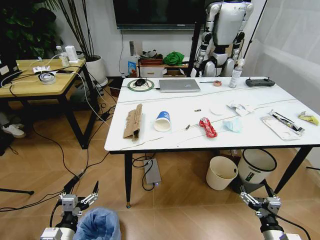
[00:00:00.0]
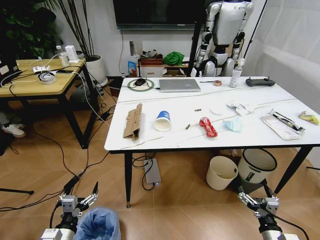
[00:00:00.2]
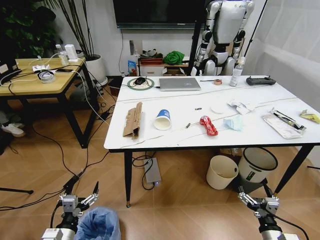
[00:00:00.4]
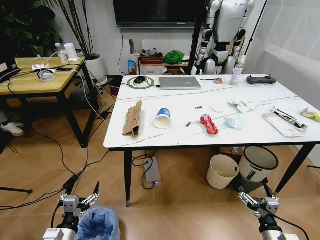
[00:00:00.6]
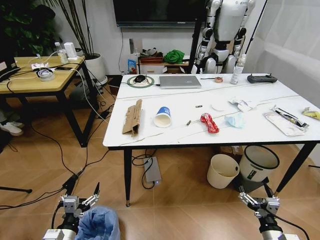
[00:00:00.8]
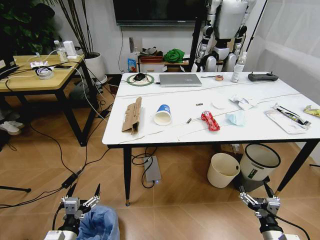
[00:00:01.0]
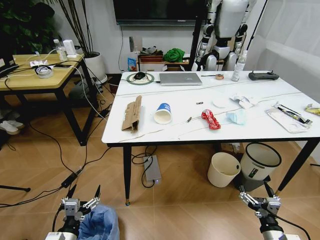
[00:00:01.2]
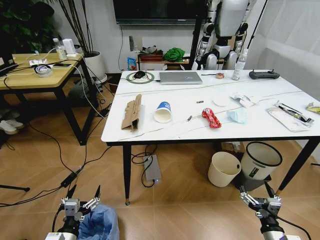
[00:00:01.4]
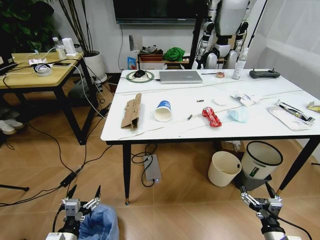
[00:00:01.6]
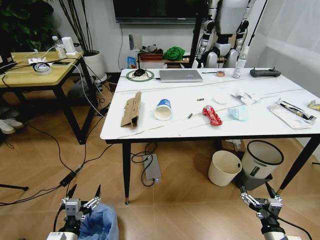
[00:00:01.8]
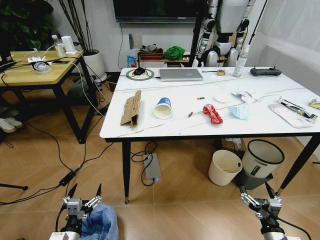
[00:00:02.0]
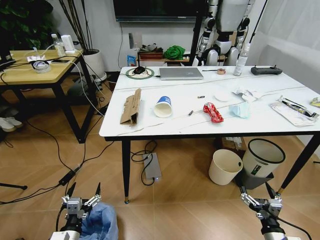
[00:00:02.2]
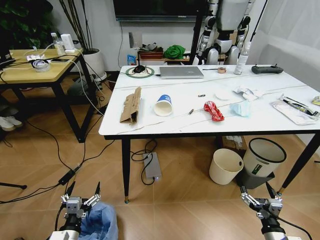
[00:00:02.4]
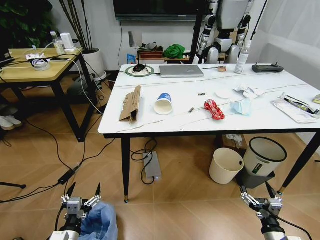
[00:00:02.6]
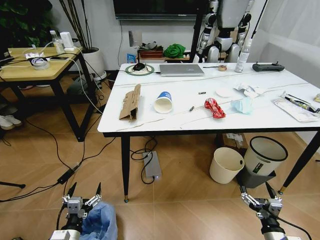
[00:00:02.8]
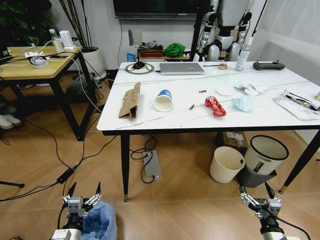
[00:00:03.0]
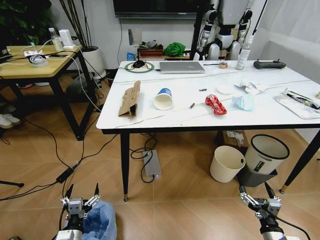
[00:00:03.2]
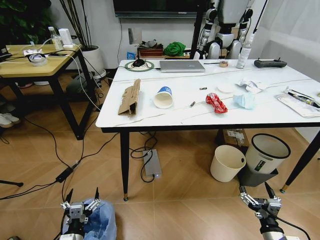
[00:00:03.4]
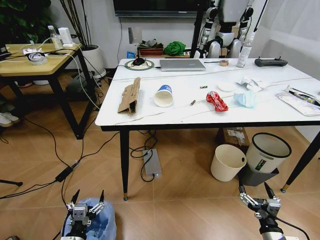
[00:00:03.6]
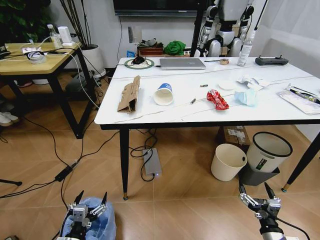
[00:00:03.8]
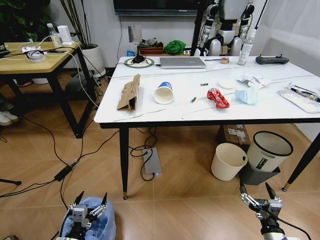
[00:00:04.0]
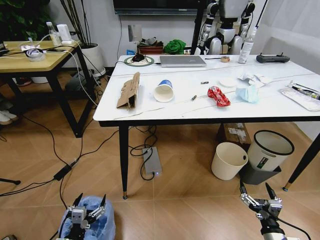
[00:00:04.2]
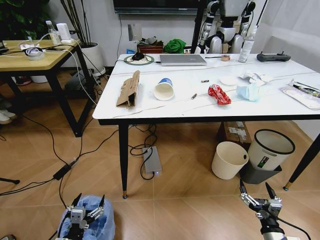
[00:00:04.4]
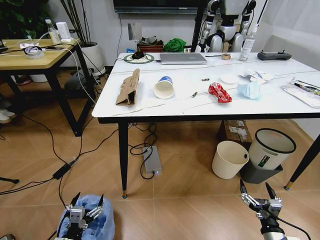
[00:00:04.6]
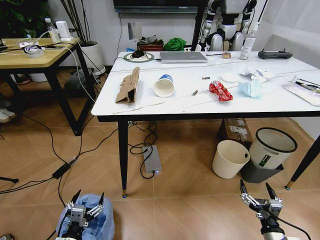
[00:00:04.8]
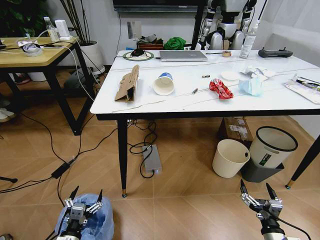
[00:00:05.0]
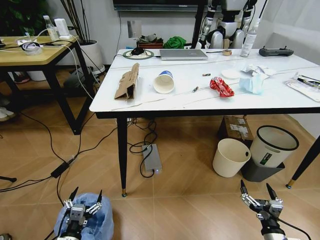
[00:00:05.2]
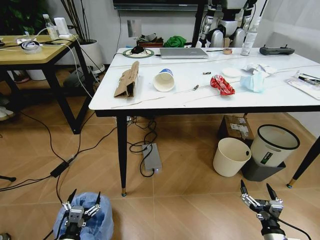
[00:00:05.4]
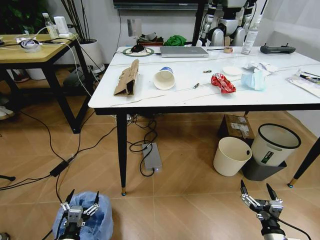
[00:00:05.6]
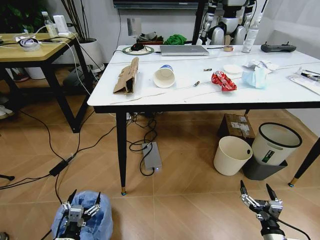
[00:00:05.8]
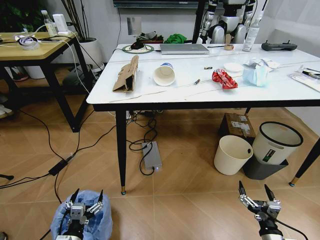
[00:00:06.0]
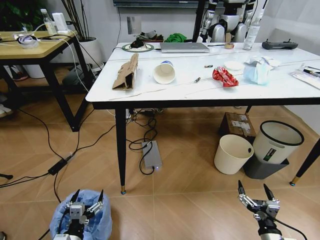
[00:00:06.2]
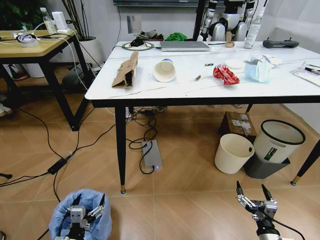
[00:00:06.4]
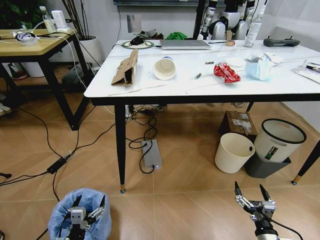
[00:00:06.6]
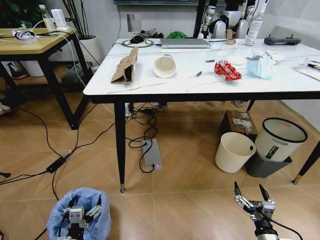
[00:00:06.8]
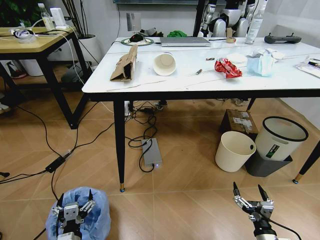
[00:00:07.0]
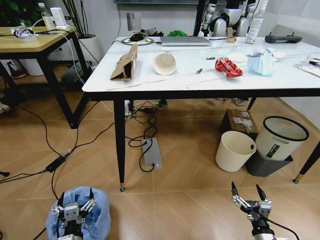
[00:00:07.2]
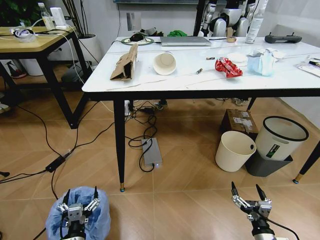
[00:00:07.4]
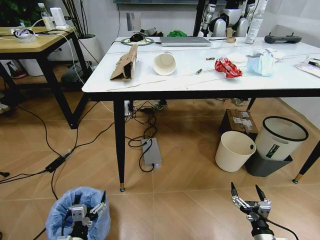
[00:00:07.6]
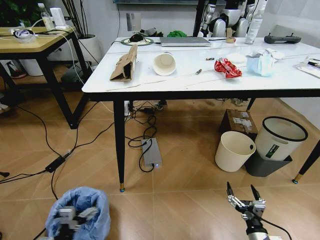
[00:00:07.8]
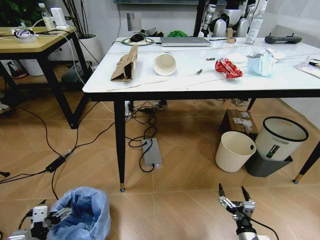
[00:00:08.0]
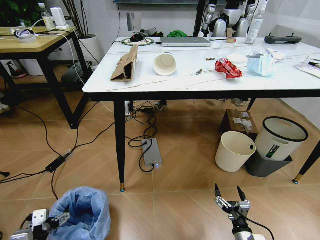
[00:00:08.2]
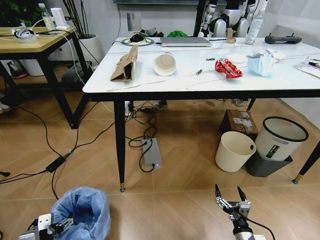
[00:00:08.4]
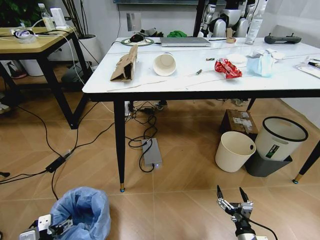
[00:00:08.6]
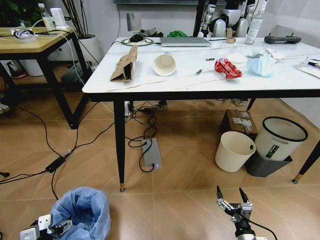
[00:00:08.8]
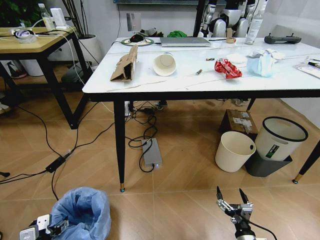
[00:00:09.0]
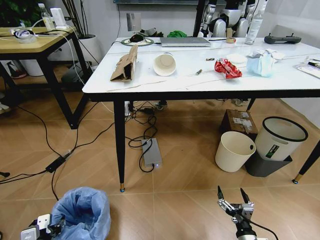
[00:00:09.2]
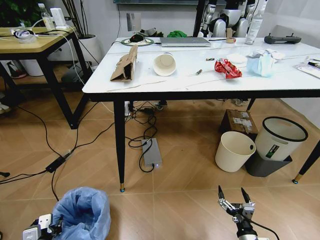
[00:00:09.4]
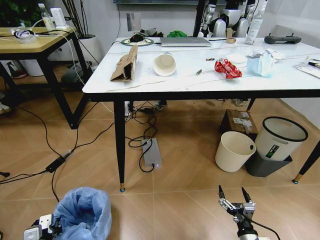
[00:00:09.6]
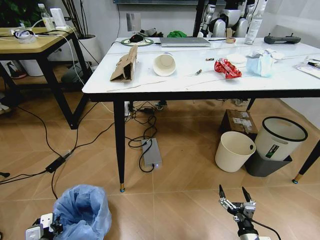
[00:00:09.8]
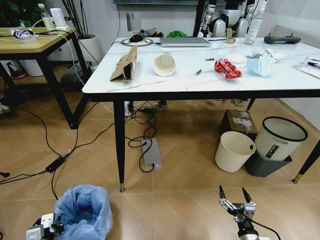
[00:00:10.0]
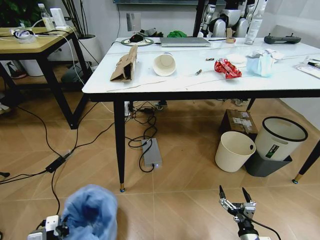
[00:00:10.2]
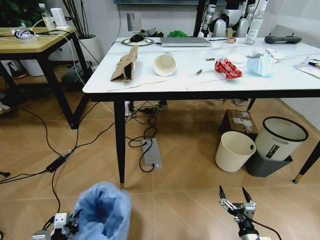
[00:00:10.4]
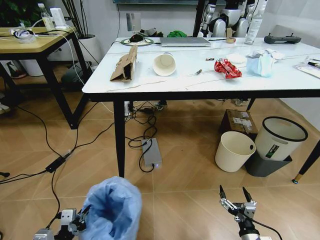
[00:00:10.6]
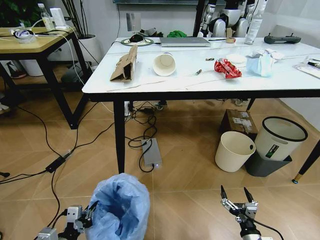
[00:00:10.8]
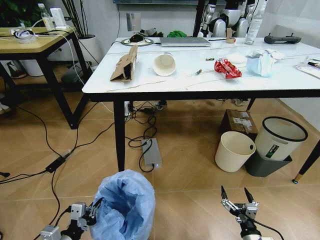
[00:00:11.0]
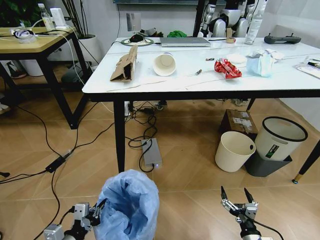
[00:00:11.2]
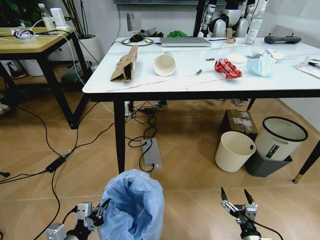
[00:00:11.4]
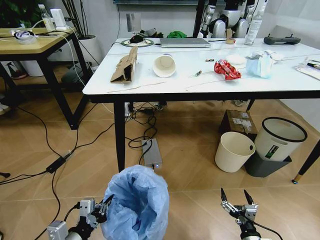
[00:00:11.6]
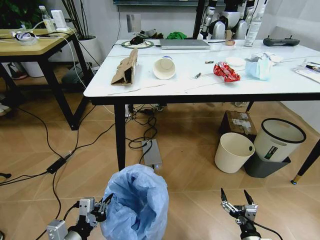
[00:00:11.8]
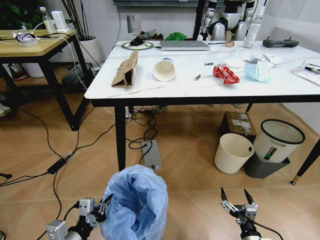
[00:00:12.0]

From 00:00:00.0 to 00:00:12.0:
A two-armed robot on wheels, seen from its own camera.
Task of the whole recording: Pick up the trash bin and place the trash from the table into it.
From 00:00:07.6 to 00:00:09.0: The left gripper goes some 10 cm to the left; the right gripper changes place by roughly 5 cm.
From 00:00:09.0 to 00:00:10.4: The left gripper closes.
From 00:00:10.4 to 00:00:12.0: The left gripper goes about 10 cm to the right and upward.

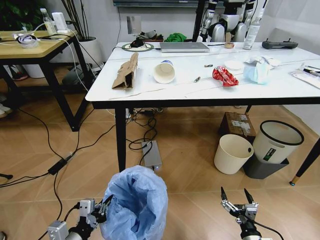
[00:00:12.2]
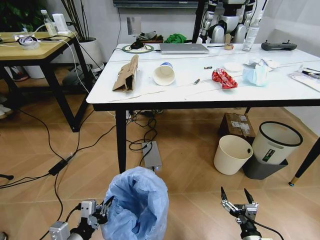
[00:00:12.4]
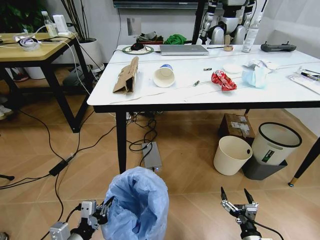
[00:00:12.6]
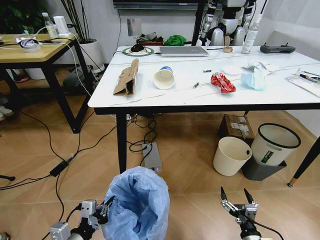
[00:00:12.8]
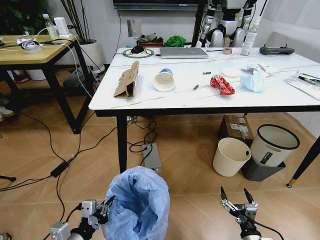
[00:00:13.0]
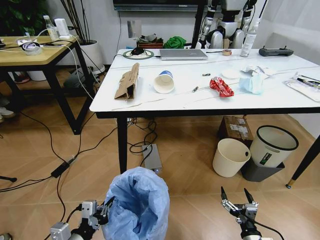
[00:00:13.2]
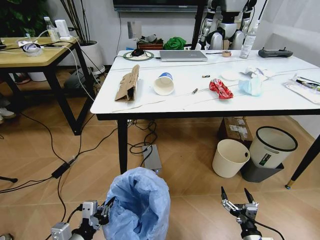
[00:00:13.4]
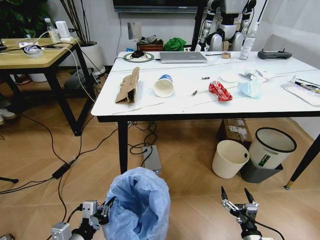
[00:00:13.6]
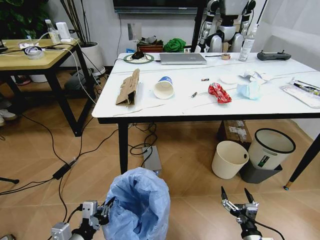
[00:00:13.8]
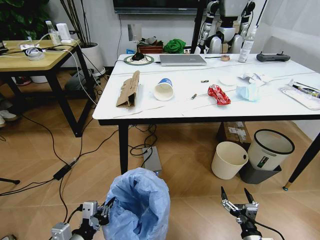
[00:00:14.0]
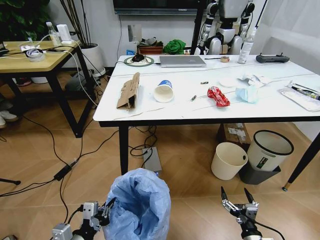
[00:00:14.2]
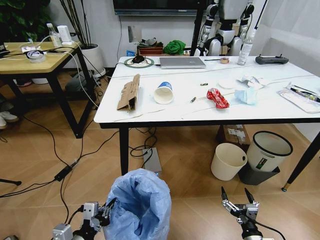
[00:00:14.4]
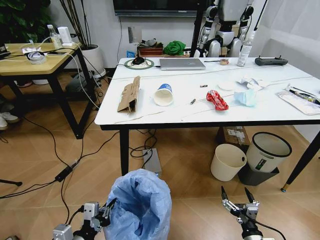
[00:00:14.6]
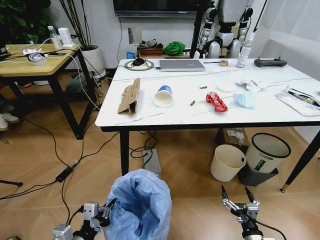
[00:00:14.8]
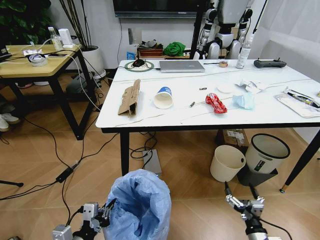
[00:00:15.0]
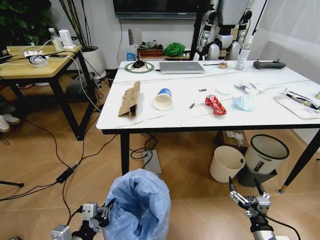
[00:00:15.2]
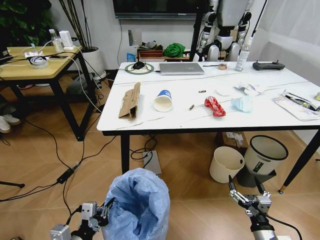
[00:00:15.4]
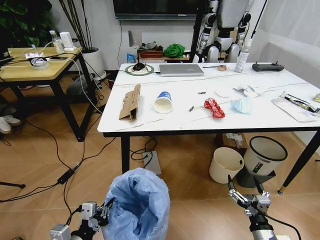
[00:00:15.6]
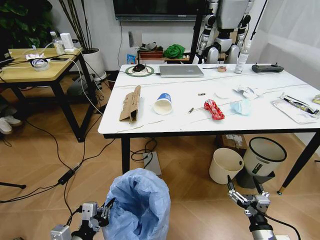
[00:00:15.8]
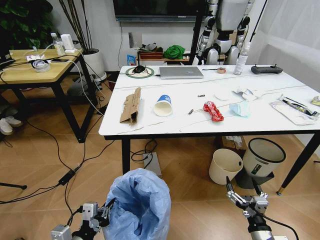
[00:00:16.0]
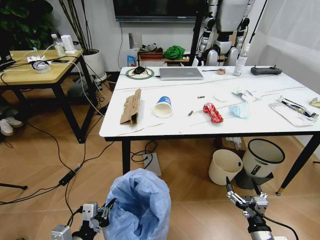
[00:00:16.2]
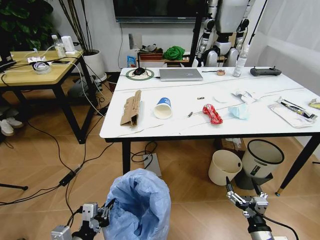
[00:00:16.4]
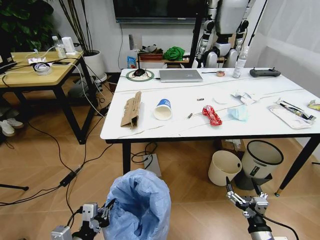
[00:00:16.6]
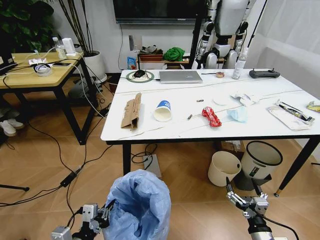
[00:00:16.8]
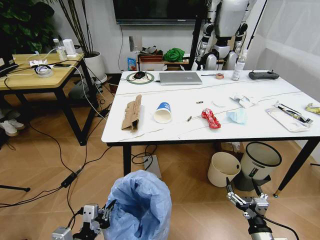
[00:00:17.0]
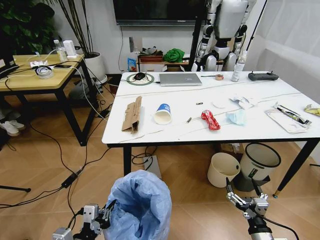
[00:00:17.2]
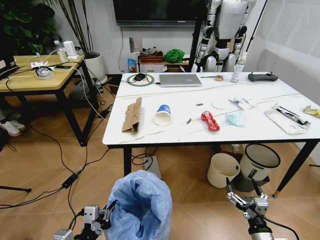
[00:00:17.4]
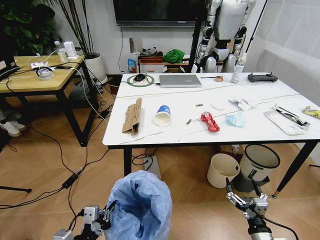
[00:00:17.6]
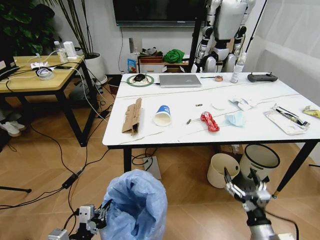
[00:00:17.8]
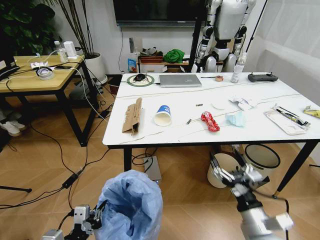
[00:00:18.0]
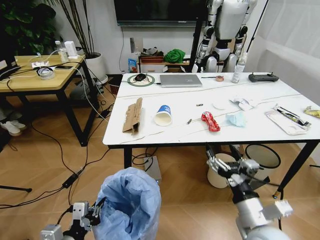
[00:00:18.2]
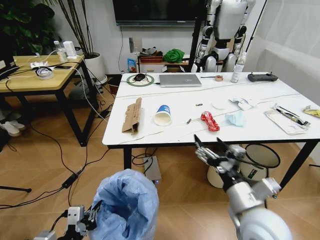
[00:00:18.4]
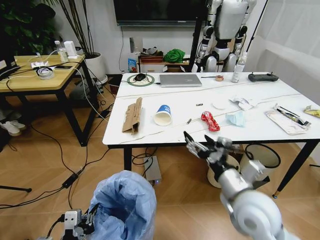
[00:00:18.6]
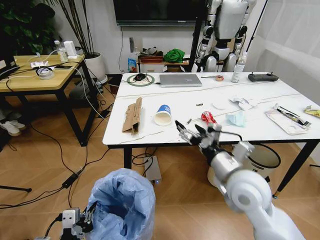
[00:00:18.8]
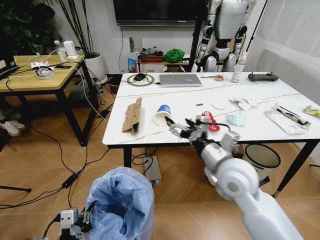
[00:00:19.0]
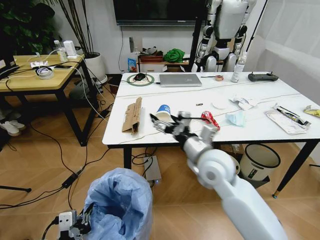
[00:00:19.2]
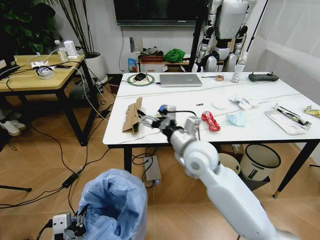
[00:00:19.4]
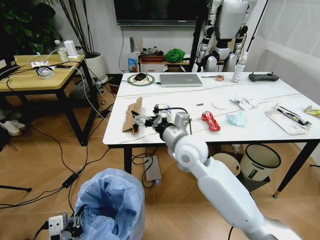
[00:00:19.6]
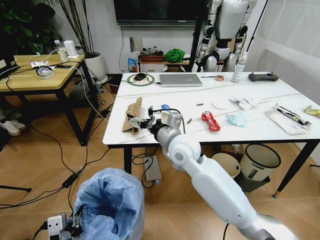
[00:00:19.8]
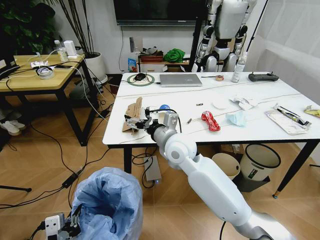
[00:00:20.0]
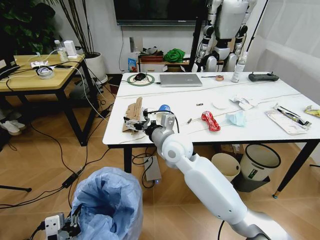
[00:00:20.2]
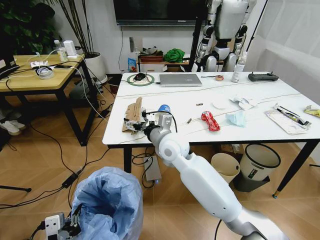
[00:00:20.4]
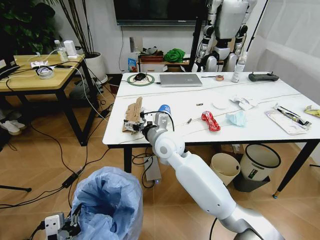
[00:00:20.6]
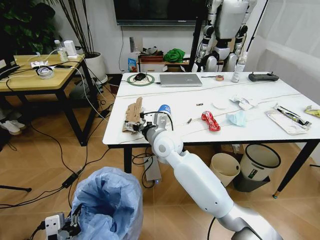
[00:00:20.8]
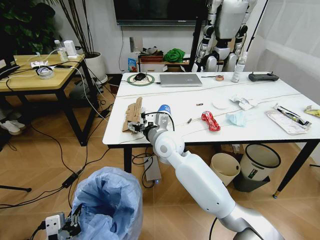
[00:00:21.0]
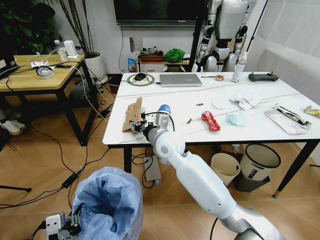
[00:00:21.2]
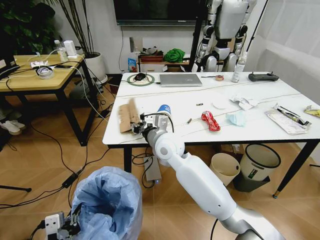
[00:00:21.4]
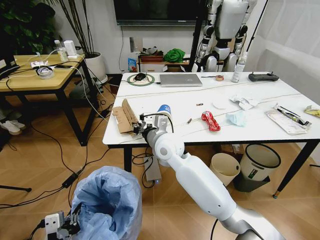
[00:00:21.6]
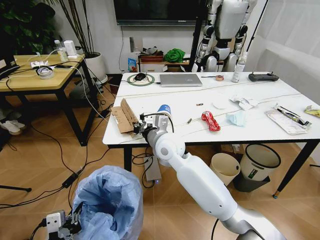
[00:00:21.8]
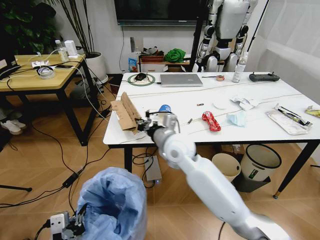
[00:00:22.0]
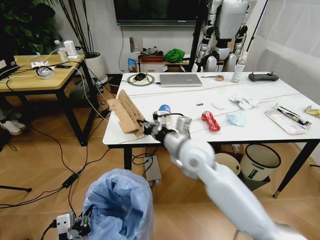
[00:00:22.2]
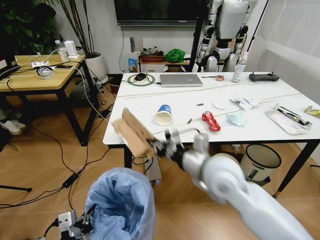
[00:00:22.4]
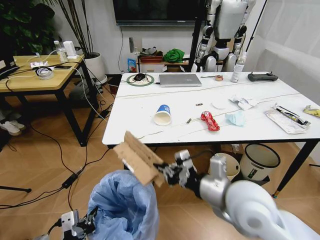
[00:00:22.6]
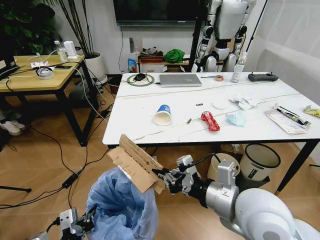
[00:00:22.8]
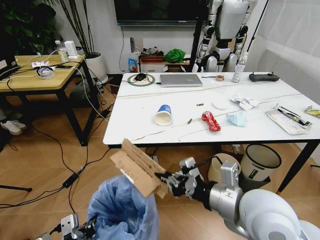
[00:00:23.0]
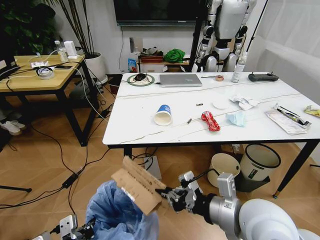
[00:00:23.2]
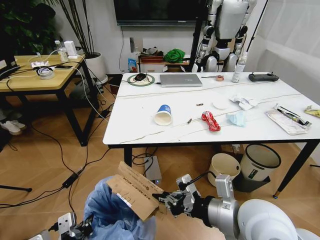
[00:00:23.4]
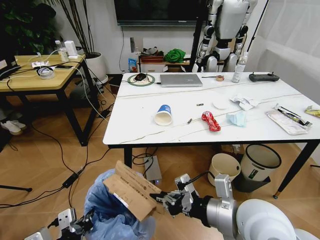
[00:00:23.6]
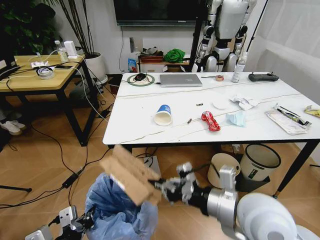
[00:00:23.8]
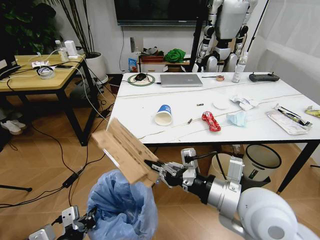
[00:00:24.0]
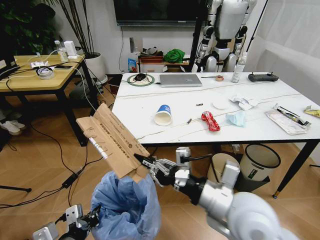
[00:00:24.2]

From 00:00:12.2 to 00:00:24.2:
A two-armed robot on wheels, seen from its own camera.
Task of the whole recording: Pick up the trash bin and place the trash from the table into it.
From 00:00:13.8 to 00:00:15.2: The right gripper heads upward, covering some 5 cm.
From 00:00:16.6 to 00:00:18.2: The right gripper moves upward and to the left, about 20 cm.
From 00:00:18.2 to 00:00:19.8: The left gripper shifts by about 5 cm; the right gripper goes roughly 30 cm forward and to the left.
From 00:00:19.8 to 00:00:21.2: The right gripper shifts by approximately 5 cm, and closes up.
From 00:00:21.2 to 00:00:22.6: The right gripper goes about 25 cm backward and to the right, and closes up.
